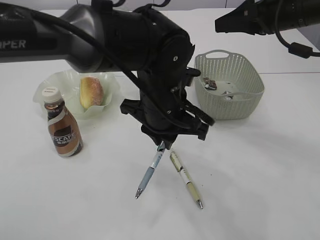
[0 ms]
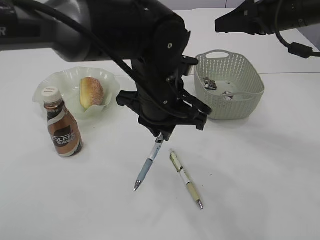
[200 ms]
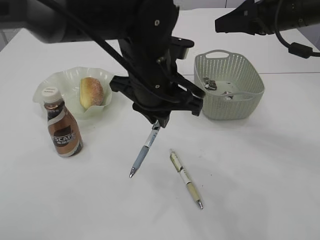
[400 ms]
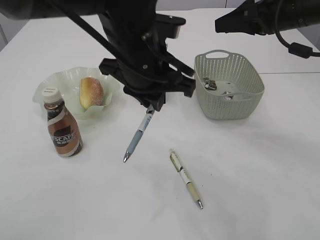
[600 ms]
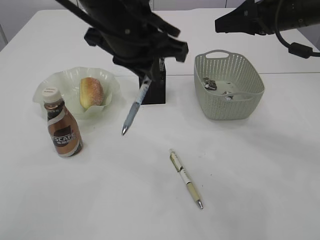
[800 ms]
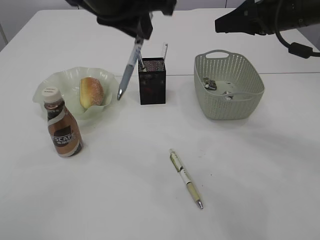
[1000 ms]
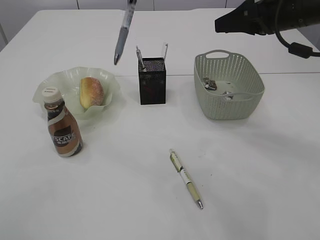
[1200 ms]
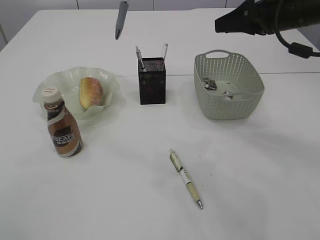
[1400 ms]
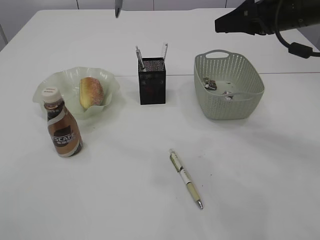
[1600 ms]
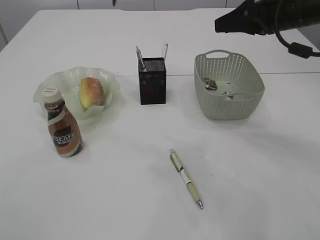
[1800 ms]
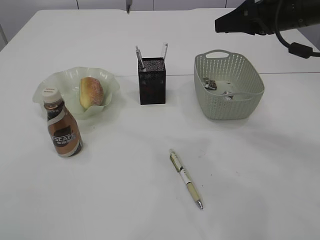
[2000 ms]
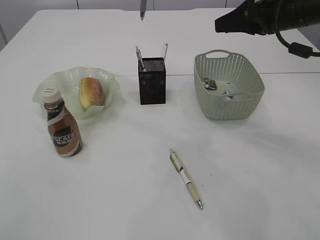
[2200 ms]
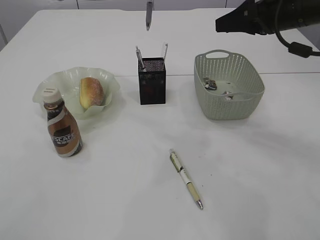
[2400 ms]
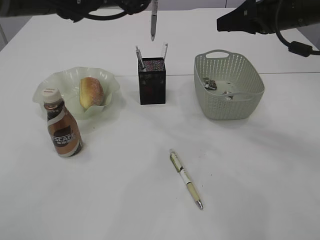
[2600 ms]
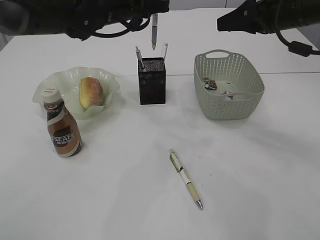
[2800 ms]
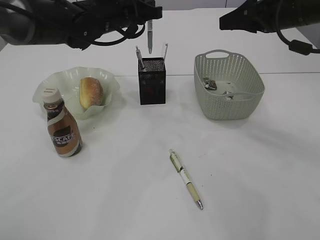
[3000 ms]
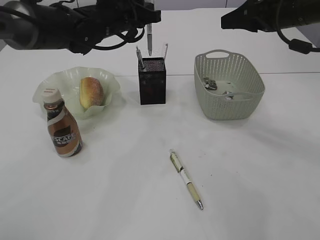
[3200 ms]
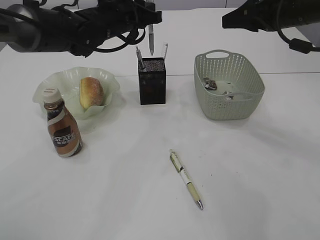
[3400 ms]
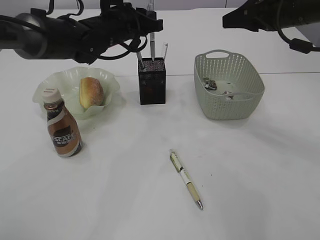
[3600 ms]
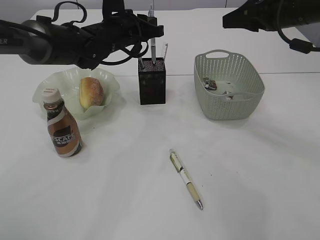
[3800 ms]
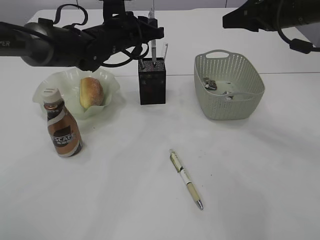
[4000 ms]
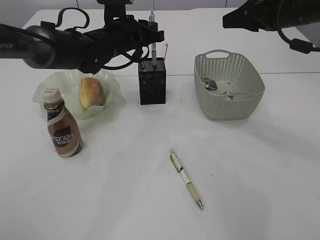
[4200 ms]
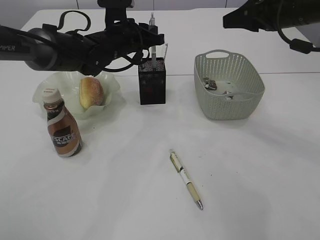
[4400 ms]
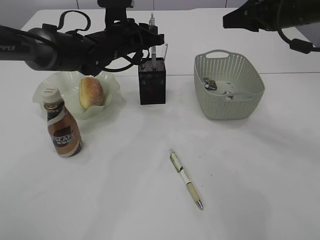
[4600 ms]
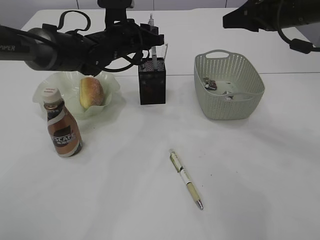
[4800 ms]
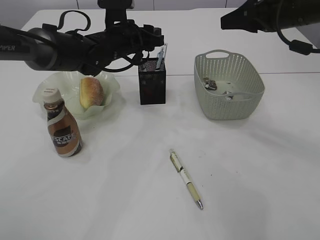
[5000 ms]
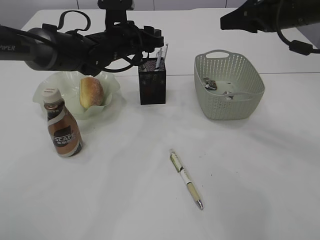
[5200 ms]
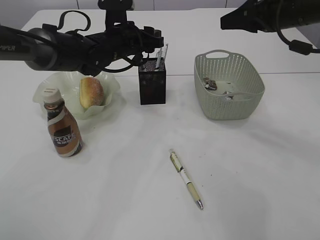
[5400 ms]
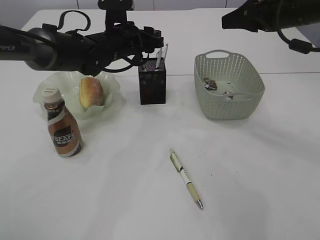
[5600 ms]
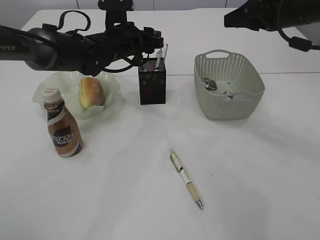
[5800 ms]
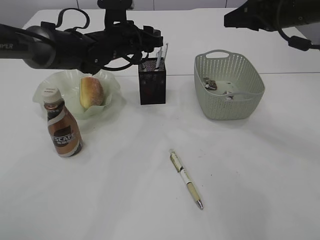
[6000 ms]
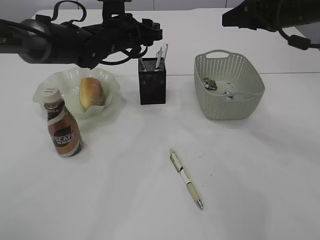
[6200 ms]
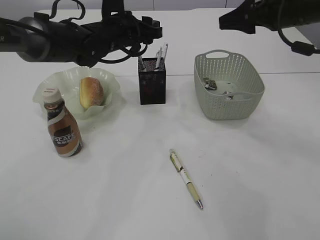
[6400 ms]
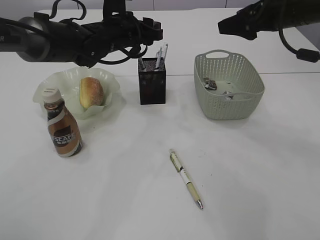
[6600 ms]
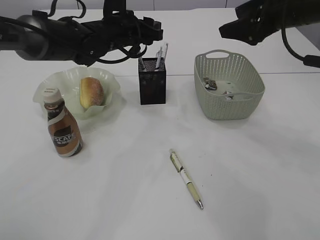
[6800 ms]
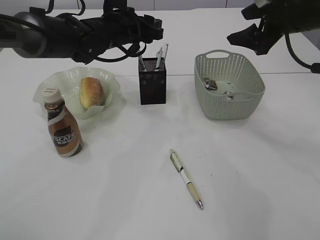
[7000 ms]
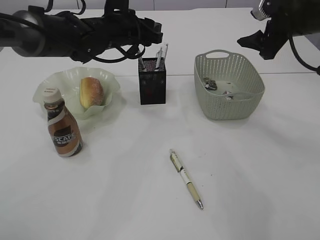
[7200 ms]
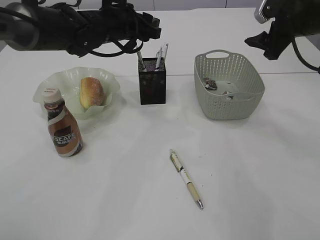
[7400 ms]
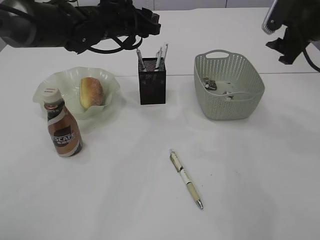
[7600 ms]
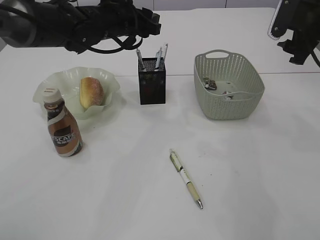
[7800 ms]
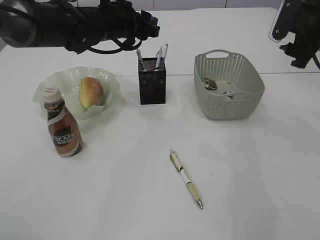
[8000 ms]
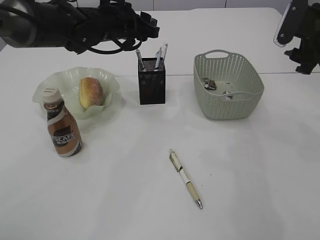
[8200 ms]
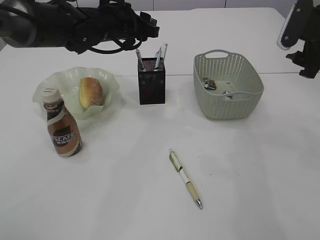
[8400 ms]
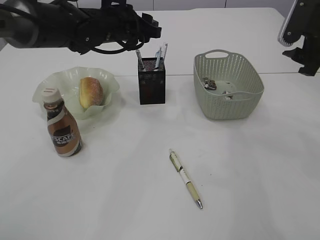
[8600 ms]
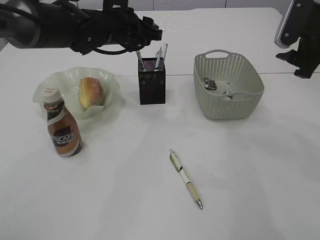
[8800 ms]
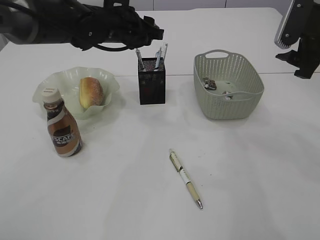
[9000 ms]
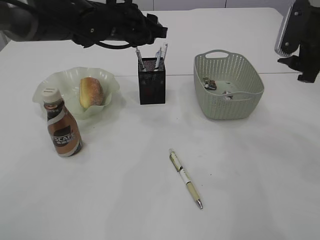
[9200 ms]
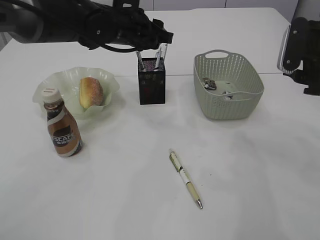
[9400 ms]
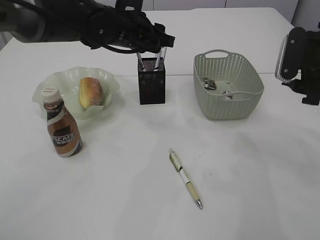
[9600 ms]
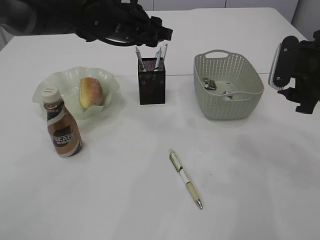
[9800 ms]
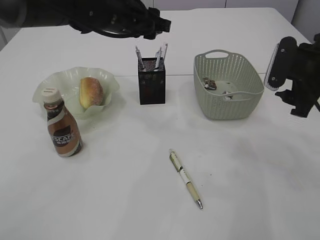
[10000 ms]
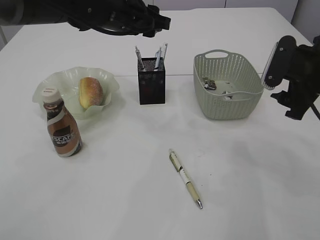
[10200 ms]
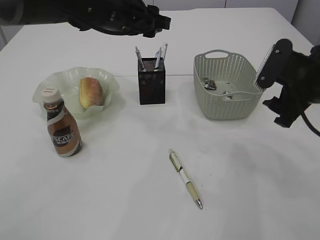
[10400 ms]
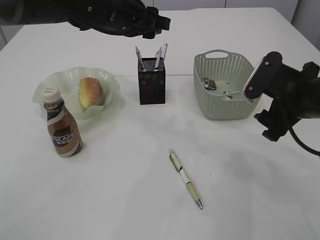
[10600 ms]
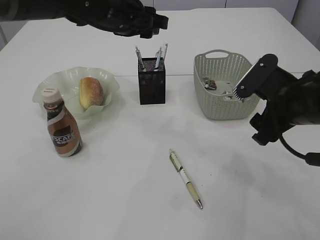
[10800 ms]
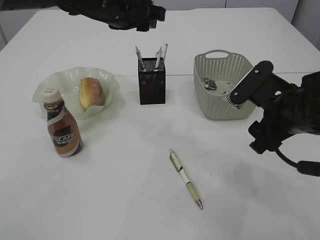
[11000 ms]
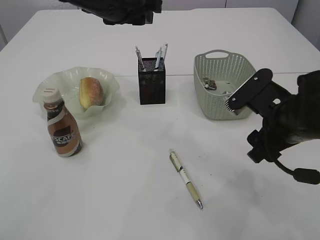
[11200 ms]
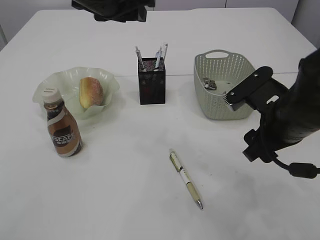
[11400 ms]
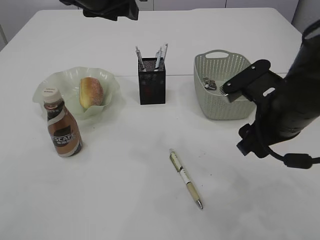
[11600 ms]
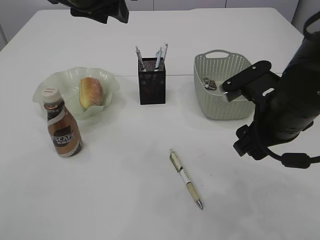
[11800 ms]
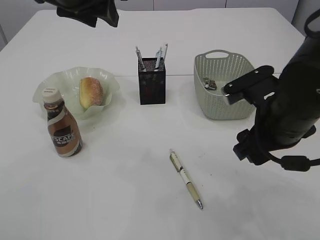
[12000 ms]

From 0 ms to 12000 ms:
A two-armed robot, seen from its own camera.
Step, from 0 ms to 6200 ms: Place the pen into the pen holder.
From 0 ms to 1600 ms: The left gripper moves upward and to the left, some 25 cm.
From 1600 ms to 3000 ms: The left gripper is displaced downward and forward by some 20 cm.
From 3000 ms to 4400 ms: The left gripper moves downward, about 5 cm.
From 4400 ms to 6000 ms: The left gripper opens up.
From 6000 ms to 7600 ms: The right gripper shifts by roughly 5 cm, and opens up.
From 7600 ms to 9000 ms: The right gripper shifts roughly 5 cm backward.
From 9000 ms to 10400 ms: The right gripper goes some 5 cm downward.
From 10400 ms to 12000 ms: The right gripper goes roughly 10 cm to the left and backward, while the left gripper heads upward, backward and to the left, covering approximately 10 cm.

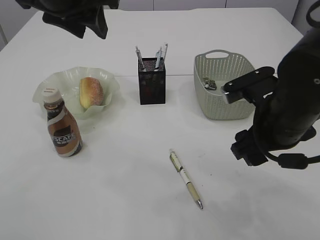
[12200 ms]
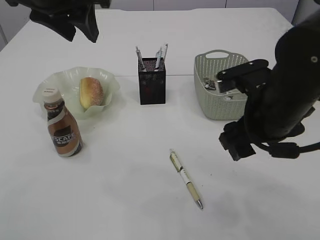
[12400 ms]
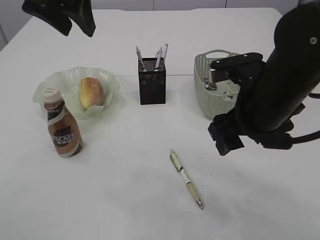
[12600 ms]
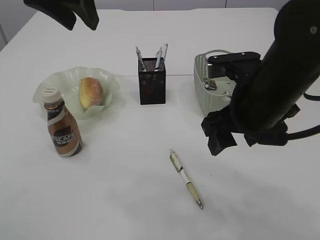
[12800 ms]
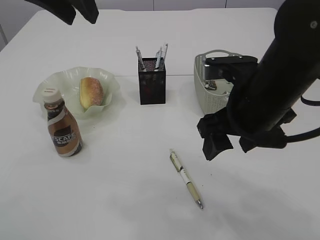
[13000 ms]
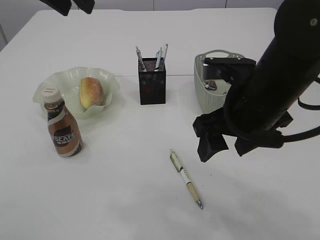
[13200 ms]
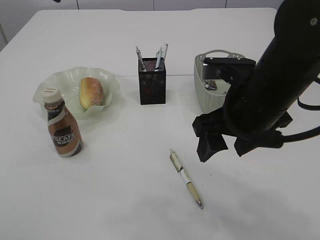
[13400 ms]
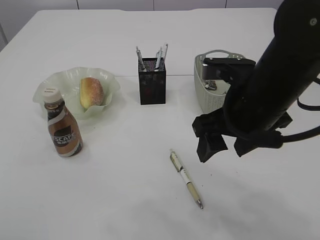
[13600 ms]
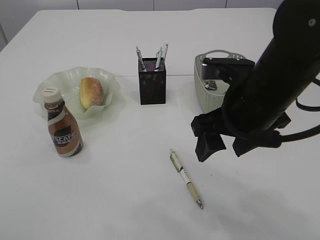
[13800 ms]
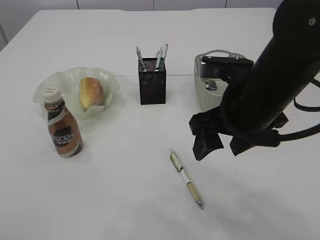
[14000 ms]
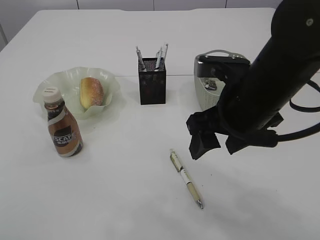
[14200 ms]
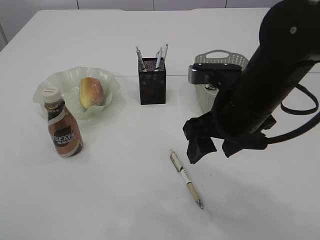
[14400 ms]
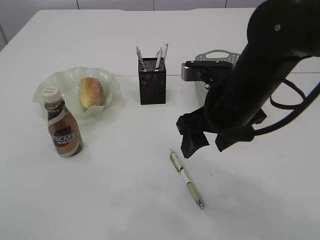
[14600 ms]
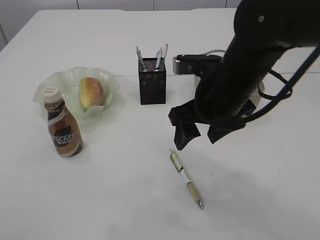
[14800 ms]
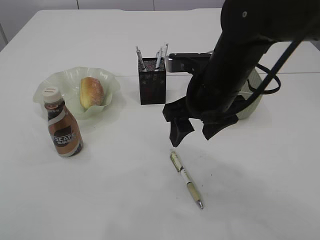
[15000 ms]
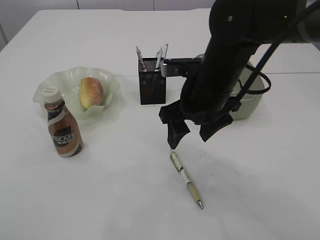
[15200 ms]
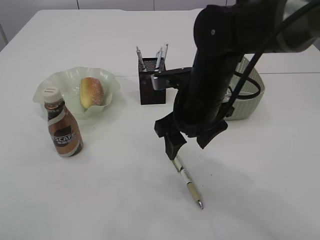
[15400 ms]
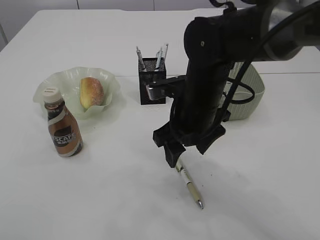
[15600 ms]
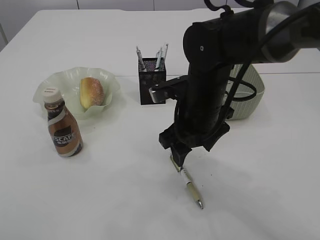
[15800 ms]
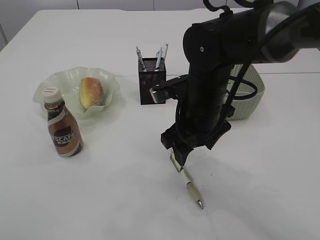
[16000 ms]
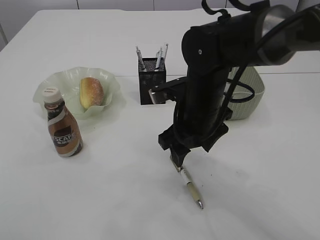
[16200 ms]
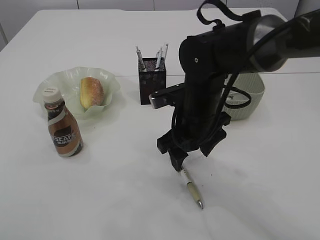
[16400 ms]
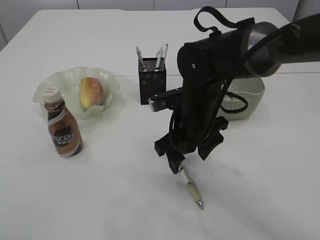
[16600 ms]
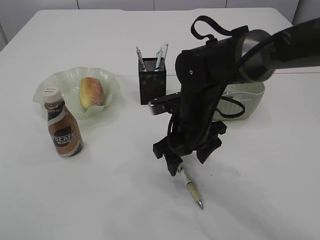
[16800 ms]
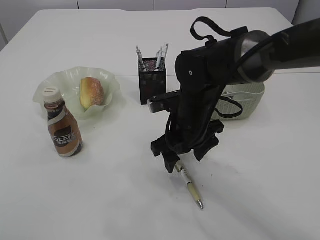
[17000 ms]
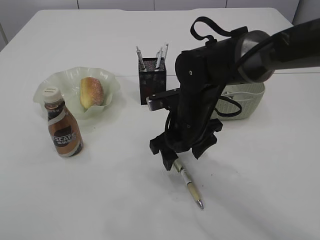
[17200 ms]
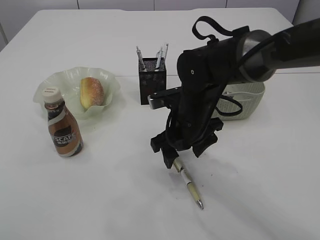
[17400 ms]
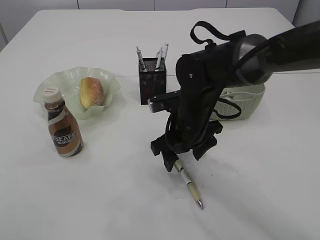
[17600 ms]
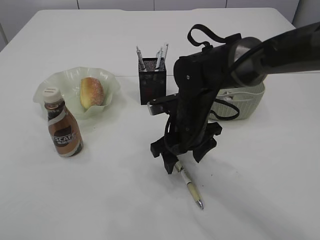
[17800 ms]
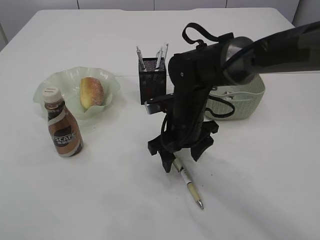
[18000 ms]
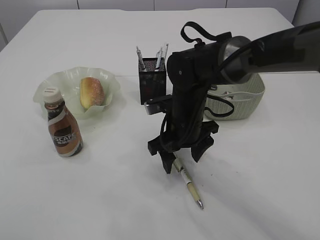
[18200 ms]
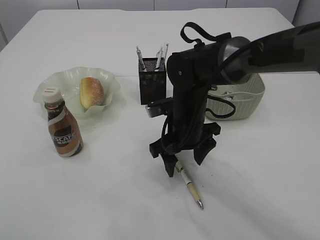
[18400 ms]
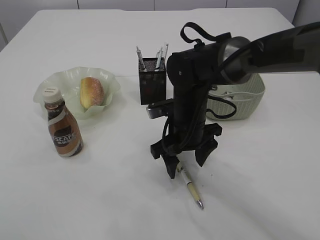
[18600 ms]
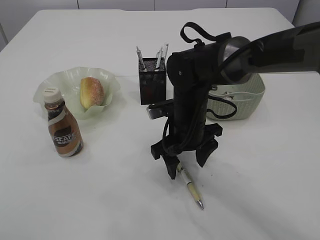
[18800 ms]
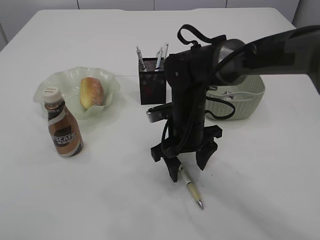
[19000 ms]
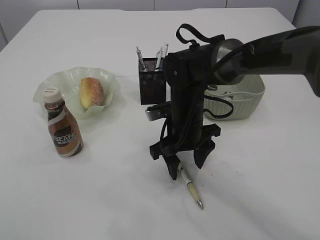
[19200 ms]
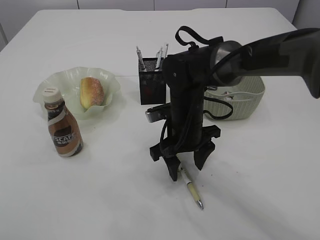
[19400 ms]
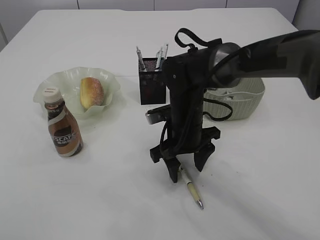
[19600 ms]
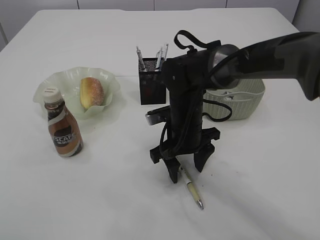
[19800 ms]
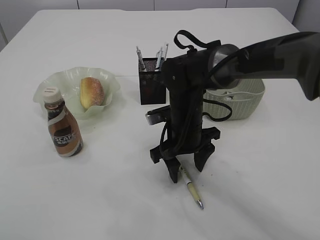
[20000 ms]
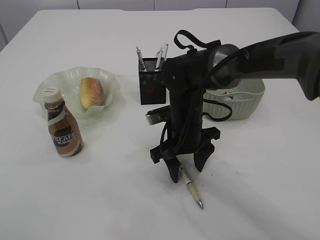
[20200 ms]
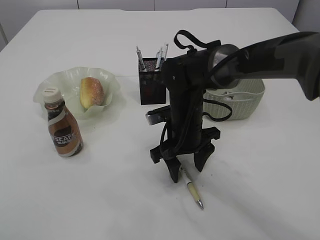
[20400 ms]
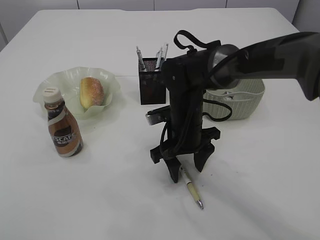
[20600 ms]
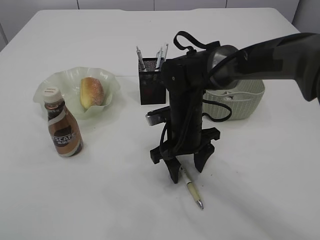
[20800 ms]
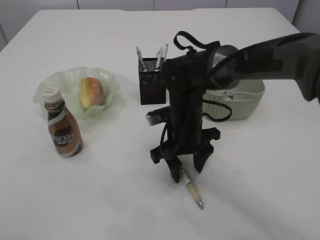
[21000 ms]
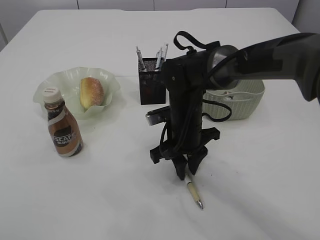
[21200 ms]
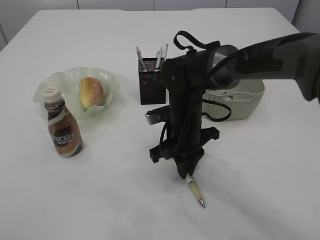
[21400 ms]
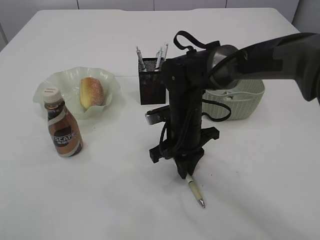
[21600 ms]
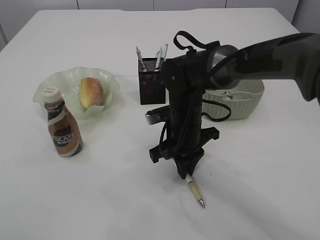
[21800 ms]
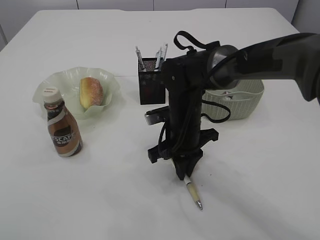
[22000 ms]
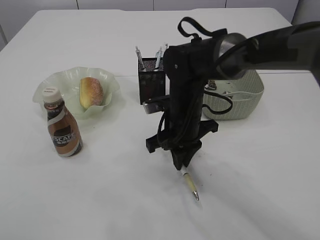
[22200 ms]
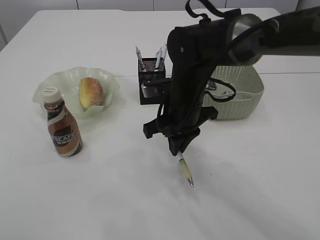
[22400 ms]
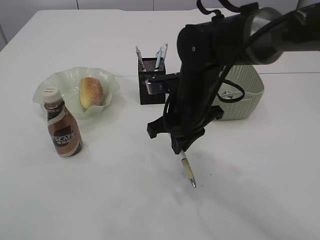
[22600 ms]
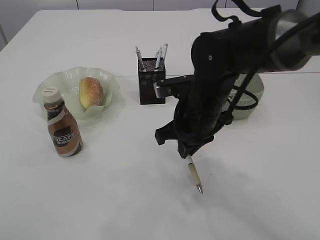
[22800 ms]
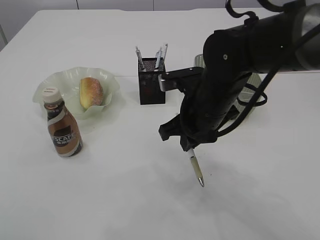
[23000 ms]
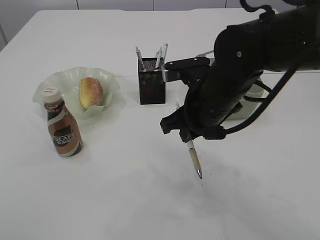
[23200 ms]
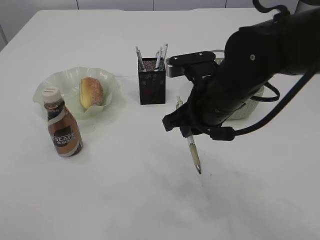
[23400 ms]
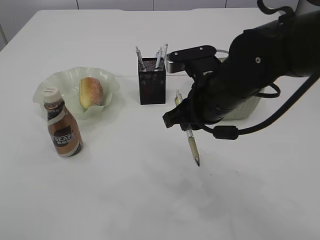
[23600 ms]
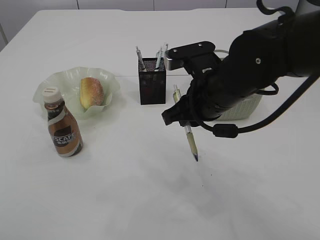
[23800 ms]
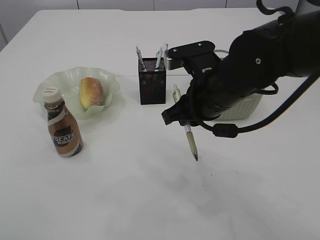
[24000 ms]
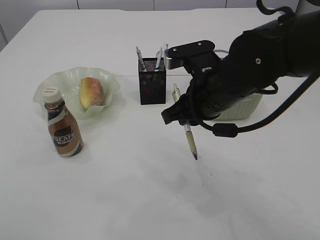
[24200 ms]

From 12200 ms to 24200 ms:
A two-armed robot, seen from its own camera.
Step, from 12200 ms to 22800 ms: Pick up the pen with right arm.
From 12200 ms to 13800 ms: The right gripper ends up about 5 cm from where it was; the left gripper shifts about 10 cm upward and backward.
From 13800 ms to 15200 ms: The right gripper shifts some 5 cm forward.
From 15200 ms to 16600 ms: The right gripper shifts some 5 cm downward.
From 16600 ms to 19800 ms: The grippers make only small movements.
From 19800 ms to 21200 ms: The right gripper closes its fingers.
From 21200 ms to 22600 ms: The right gripper travels upward by some 5 cm.
From 22600 ms to 24200 ms: The right gripper moves some 5 cm.
